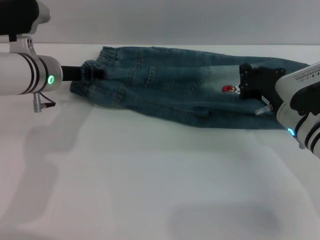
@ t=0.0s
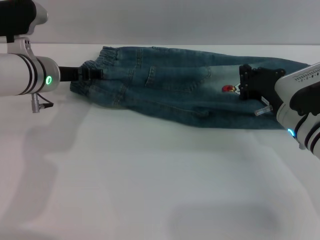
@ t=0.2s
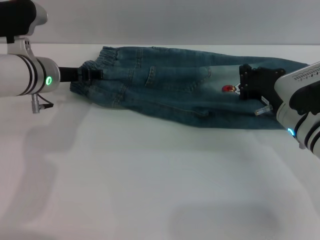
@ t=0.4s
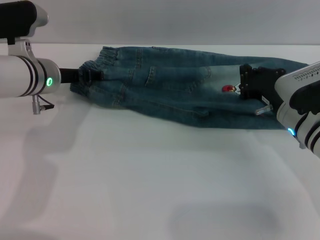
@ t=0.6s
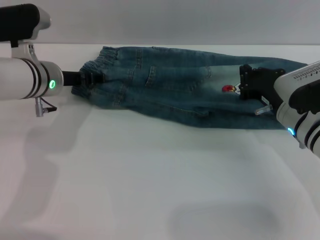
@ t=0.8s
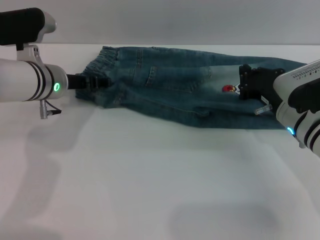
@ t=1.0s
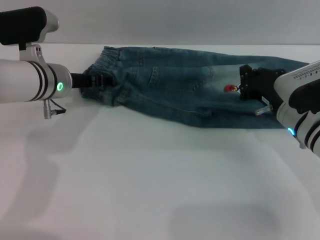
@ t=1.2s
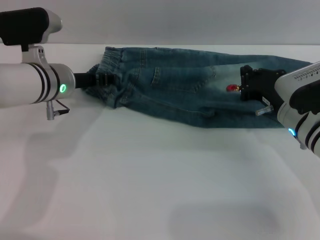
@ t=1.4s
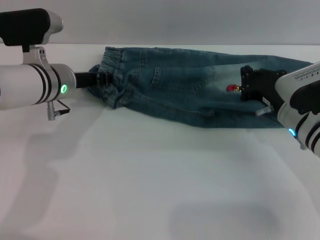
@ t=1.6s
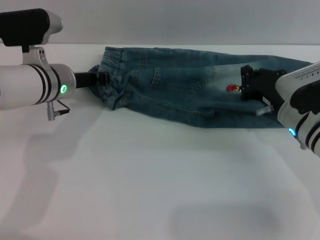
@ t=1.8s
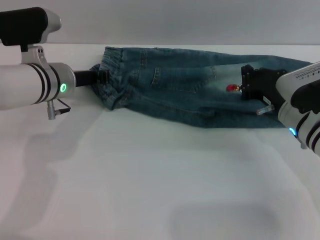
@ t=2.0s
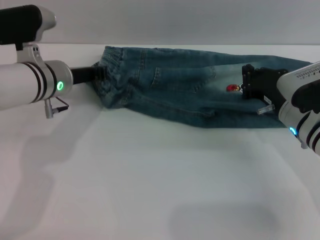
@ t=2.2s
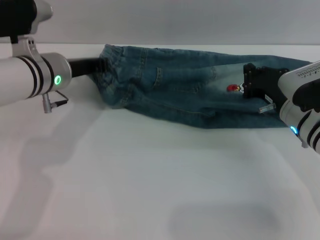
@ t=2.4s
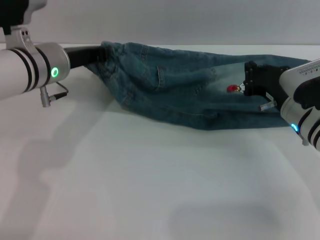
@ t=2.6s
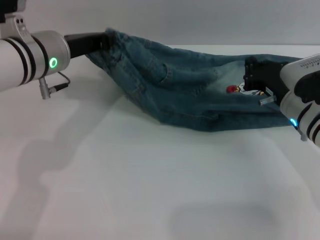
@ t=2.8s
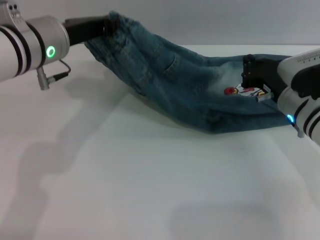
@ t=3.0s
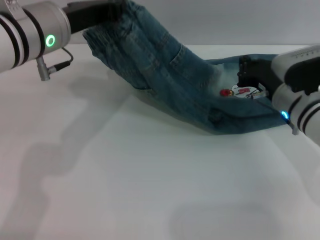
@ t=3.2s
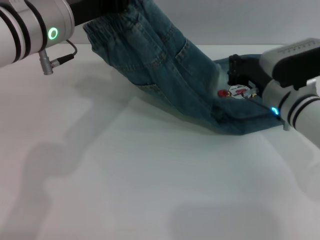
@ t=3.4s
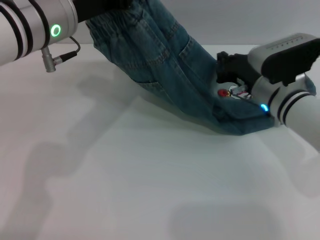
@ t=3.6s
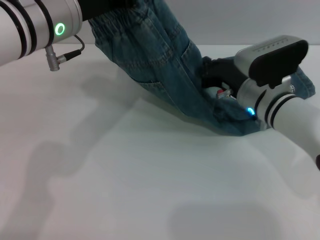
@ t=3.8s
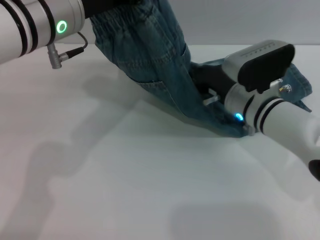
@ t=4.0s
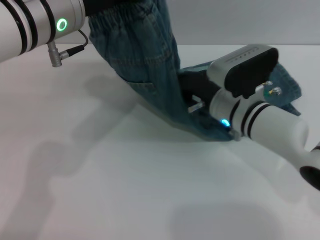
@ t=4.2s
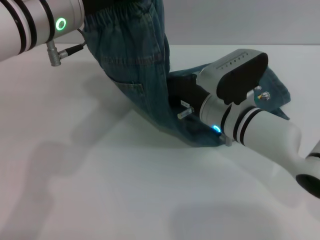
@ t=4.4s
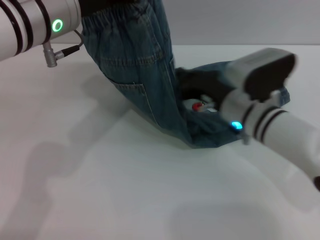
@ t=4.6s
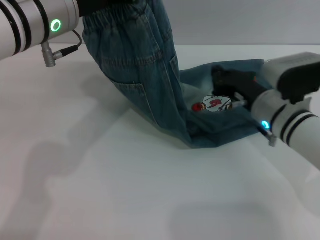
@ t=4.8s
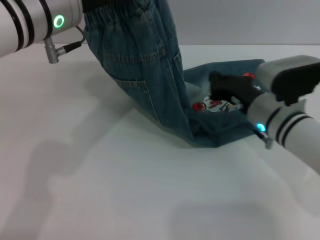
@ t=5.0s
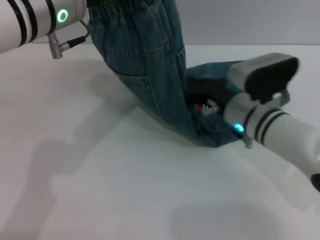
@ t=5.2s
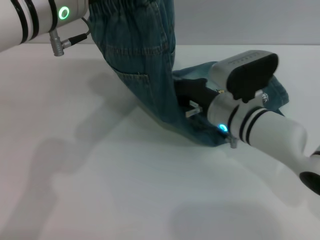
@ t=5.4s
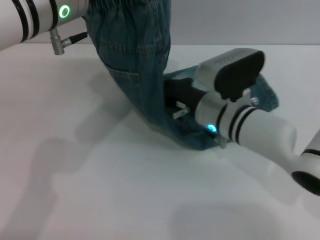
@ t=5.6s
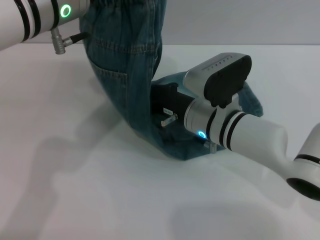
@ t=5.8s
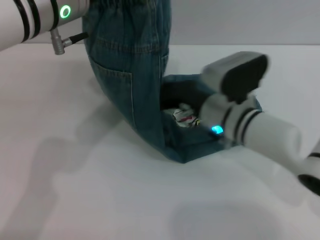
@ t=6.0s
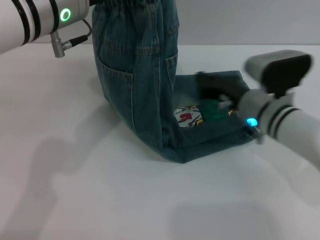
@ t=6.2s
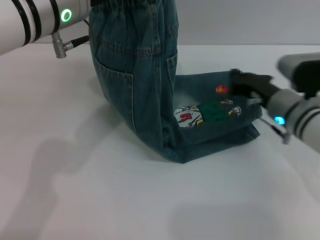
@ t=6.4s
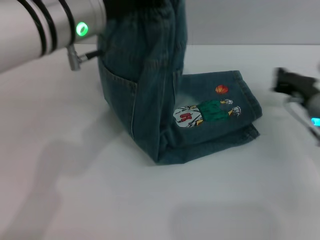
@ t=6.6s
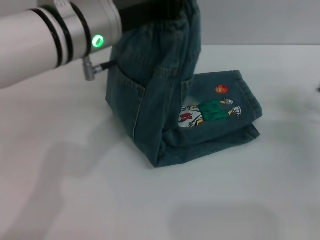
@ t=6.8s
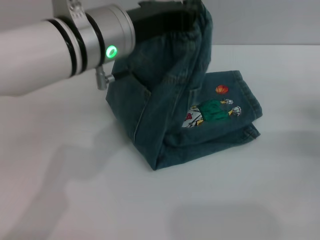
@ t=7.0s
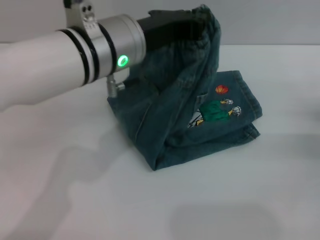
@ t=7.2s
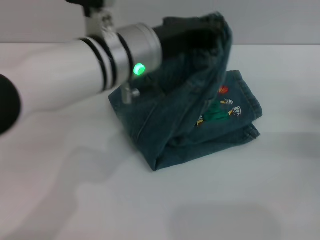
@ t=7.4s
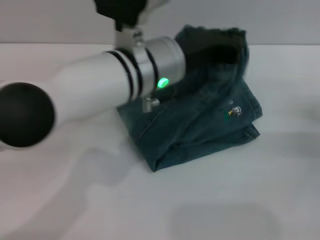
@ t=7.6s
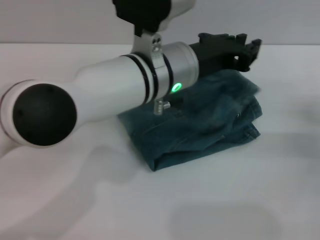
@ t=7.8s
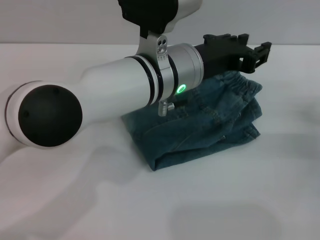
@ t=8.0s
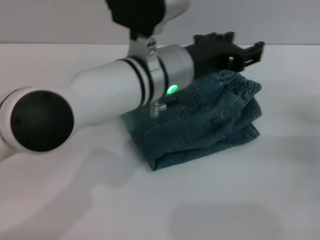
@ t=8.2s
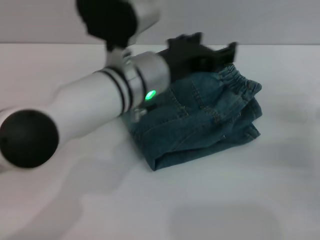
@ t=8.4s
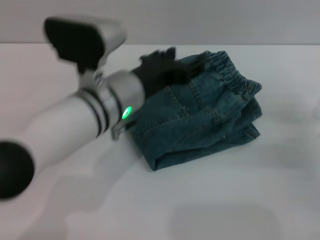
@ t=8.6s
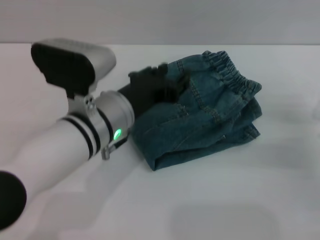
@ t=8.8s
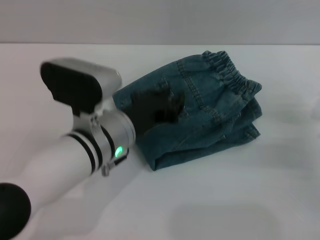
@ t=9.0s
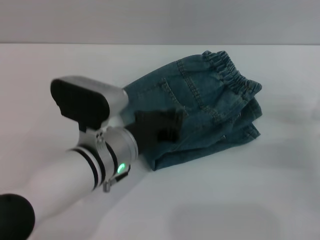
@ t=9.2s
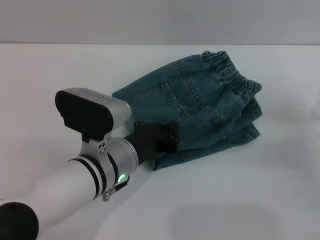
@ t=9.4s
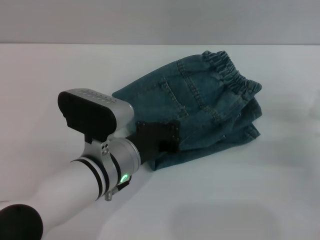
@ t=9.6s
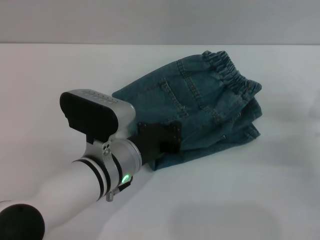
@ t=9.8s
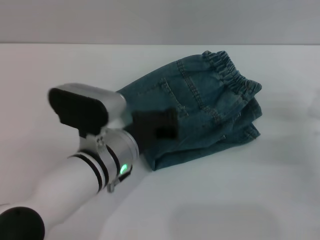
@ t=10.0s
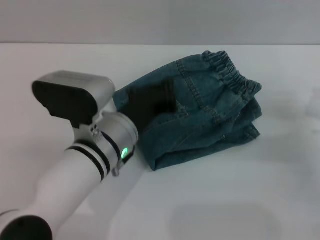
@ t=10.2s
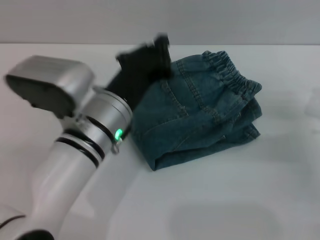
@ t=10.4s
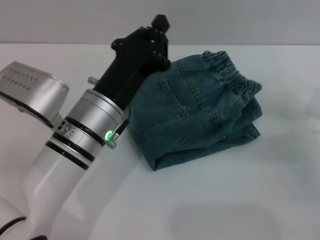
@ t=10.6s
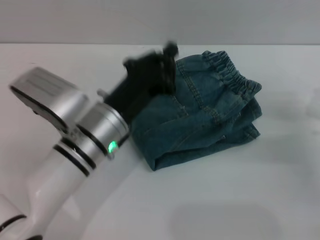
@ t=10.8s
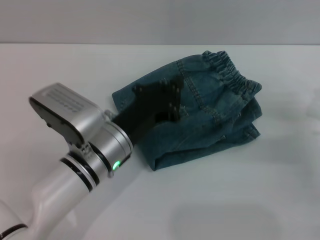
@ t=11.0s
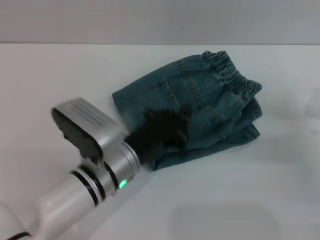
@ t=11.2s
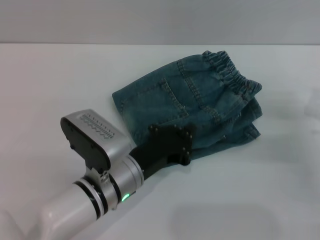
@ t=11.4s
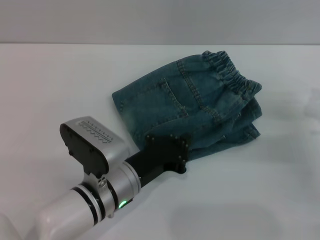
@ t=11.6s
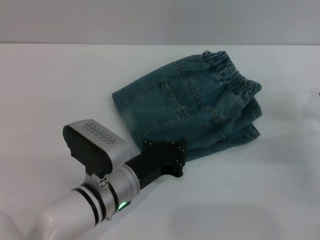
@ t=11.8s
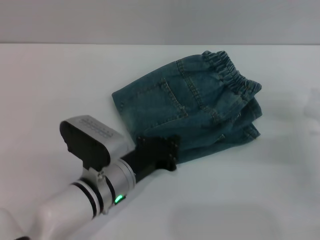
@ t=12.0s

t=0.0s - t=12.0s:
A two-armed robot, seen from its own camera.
Step, t=0.0s - t=8.0s: Fold the pants from left to right with the left gripper.
t=0.0s - t=1.6s: There are only small adjustments of the grippers.
t=1.6s - t=3.0s: The left gripper goes approximately 10 cm upward, and closes.
t=3.0s - t=4.4s: The left gripper changes place by roughly 5 cm, while the right gripper is displaced to the left by about 10 cm.
t=4.4s - t=6.0s: The right gripper reaches about 10 cm to the right, then returns.
t=6.0s - t=7.6s: The left gripper travels to the right and downward by about 10 cm. Meanwhile the right gripper heads to the right, covering some 25 cm.
t=7.6s - t=9.0s: The left gripper moves downward, some 10 cm, and opens its fingers.
t=9.0s - t=10.4s: The left gripper closes its fingers.
t=10.4s - t=12.0s: The left gripper is displaced downward by about 10 cm.

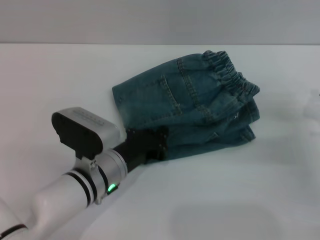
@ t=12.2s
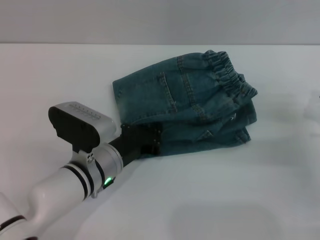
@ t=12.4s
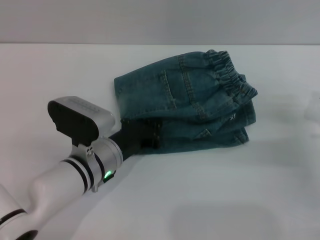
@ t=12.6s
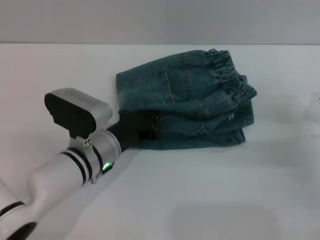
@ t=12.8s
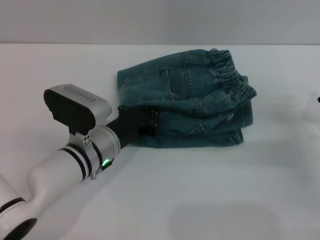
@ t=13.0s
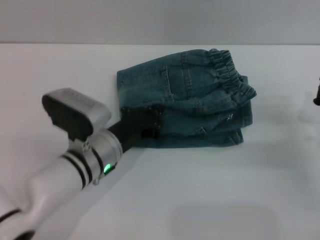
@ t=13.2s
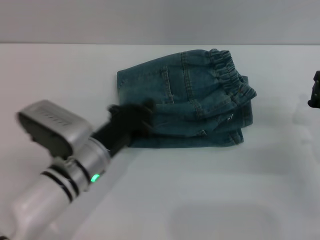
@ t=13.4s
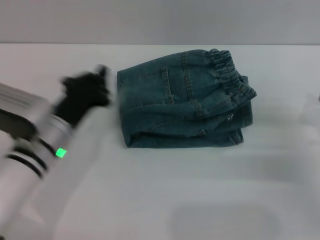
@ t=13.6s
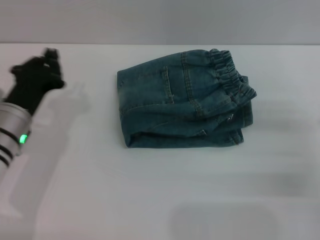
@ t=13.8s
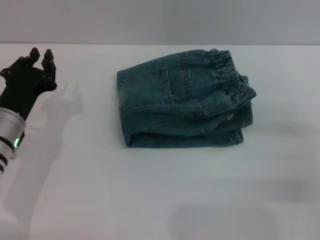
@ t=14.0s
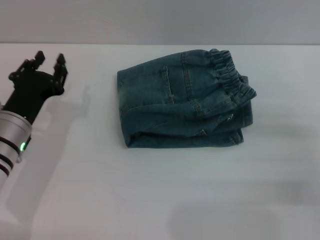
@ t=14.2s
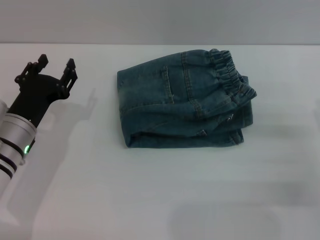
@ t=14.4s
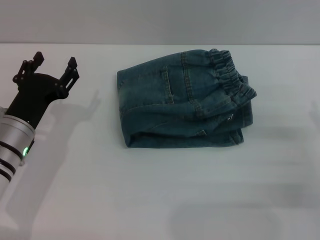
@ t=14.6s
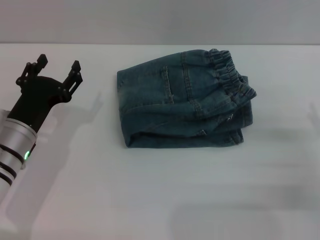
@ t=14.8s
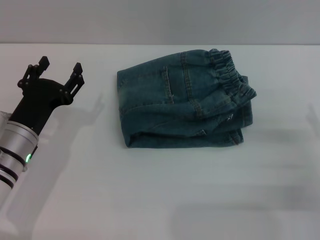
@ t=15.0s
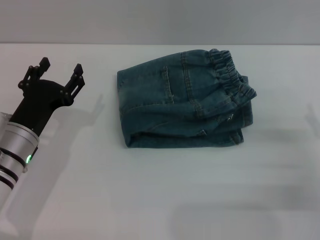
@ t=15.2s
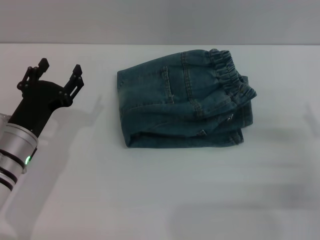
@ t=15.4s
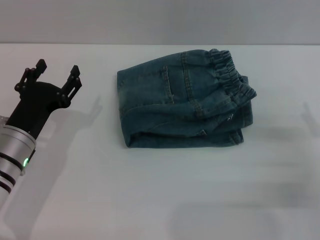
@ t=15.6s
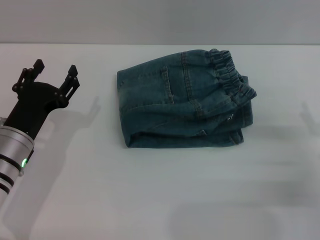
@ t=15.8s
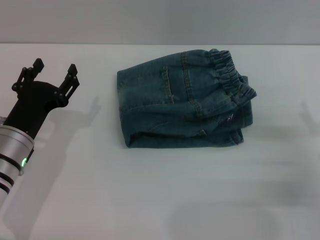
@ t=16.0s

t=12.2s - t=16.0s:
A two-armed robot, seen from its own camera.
t=12.2s - t=13.4s: The grippers move only a little.
t=13.4s - t=14.8s: The right gripper travels backward by roughly 5 cm, and opens its fingers, while the left gripper is displaced to the left by about 10 cm, and opens up.
t=14.8s - t=16.0s: Neither gripper changes place.

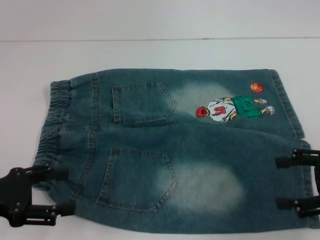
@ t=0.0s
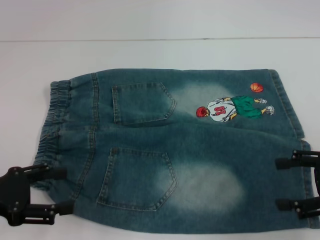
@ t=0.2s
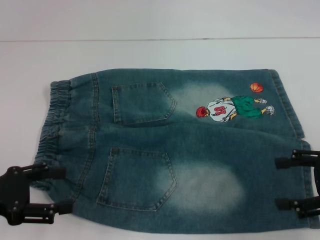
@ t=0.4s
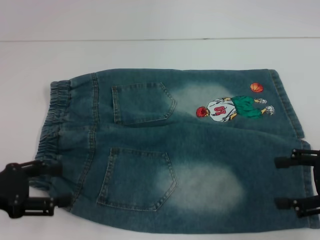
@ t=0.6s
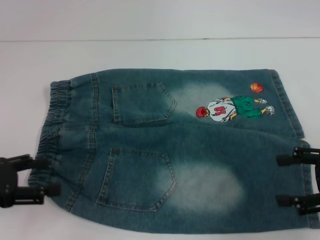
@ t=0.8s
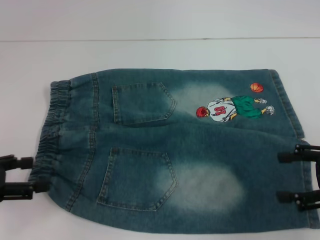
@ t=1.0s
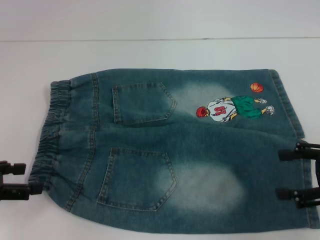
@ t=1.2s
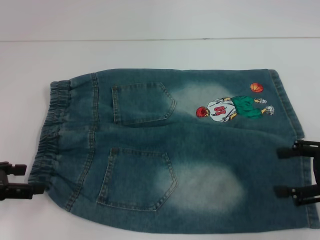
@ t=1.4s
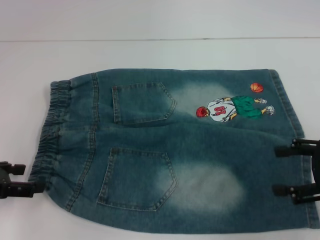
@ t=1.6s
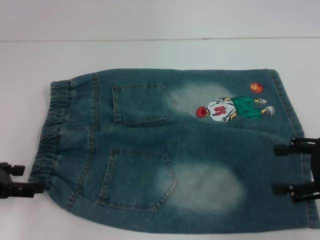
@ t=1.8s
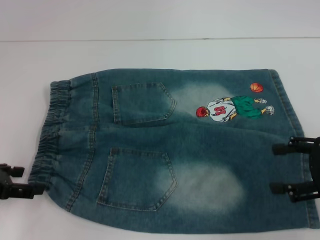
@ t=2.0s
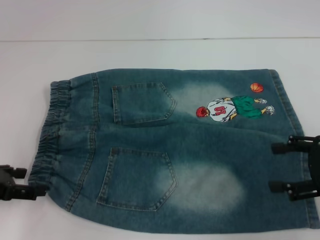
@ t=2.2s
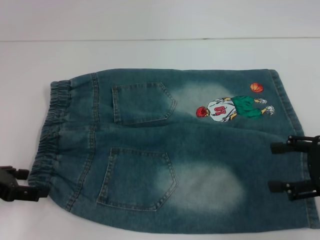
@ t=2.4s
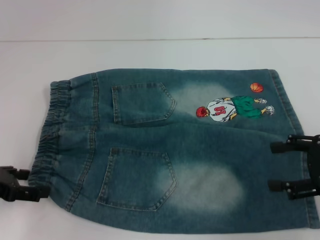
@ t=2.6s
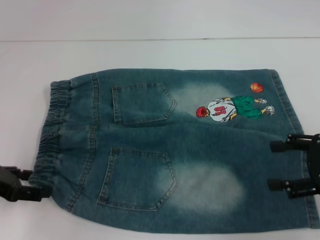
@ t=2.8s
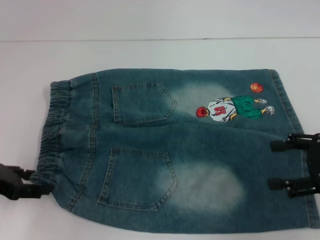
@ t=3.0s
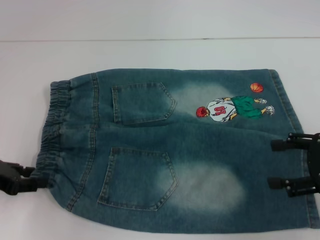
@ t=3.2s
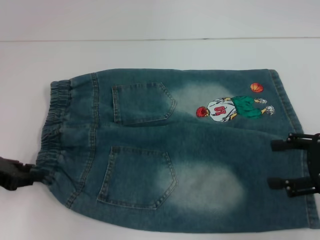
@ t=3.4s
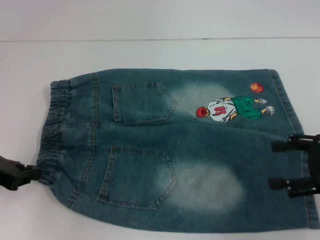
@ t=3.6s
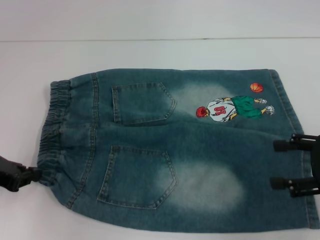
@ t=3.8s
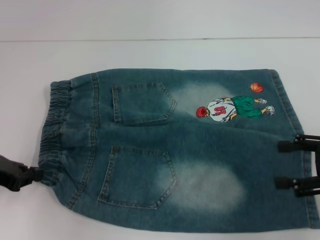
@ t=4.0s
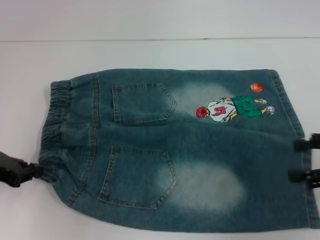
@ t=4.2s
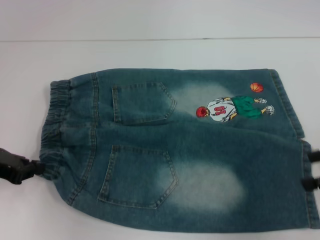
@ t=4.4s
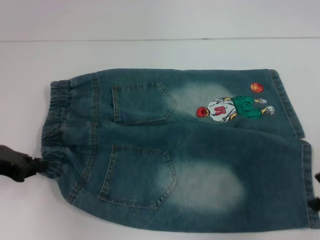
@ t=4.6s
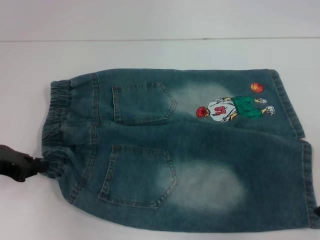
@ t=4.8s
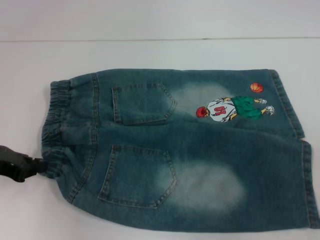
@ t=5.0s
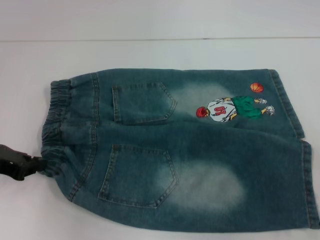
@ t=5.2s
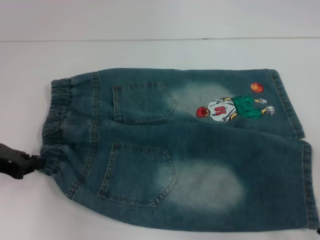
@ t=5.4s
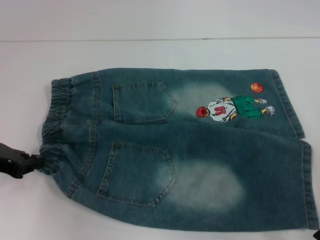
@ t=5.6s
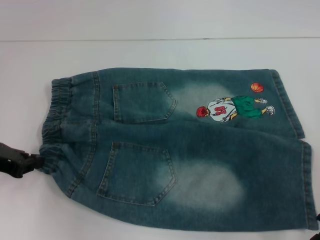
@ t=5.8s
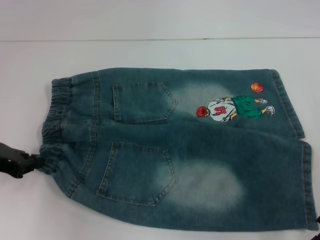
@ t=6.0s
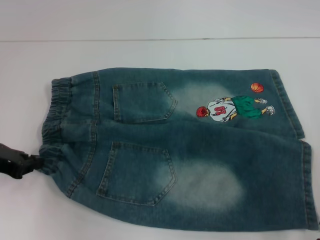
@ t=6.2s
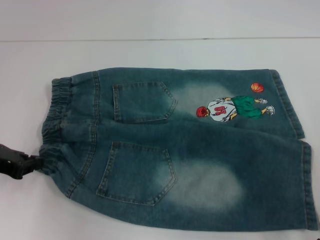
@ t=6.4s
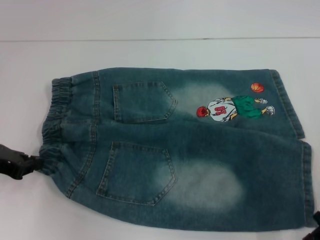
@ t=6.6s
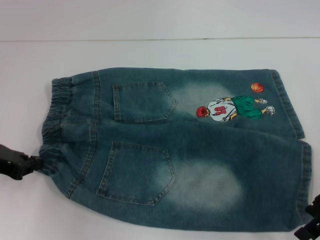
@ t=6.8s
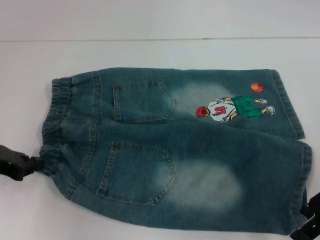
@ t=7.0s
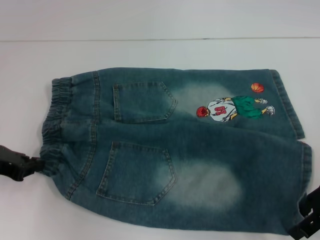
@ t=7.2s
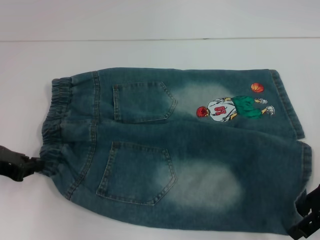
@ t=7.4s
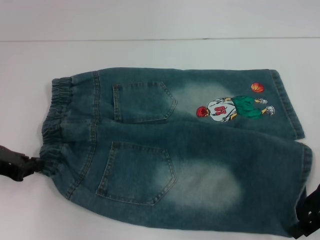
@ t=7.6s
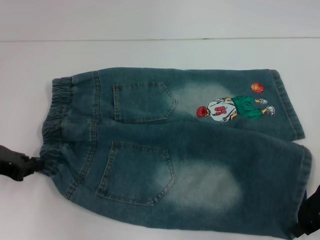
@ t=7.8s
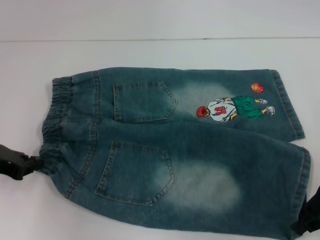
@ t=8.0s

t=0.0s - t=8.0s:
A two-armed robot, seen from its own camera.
Step, t=0.0s - t=3.0s: Hold the lower left waistband with your left hand.
Step, t=3.2s - t=7.6s: Grab the lower right pant leg with your right hand.
t=1.6s - t=3.2s: The grippers make only small movements.
t=3.2s - t=4.8s: The left gripper closes up.
t=4.8s - t=8.0s: The grippers stay close to where they were, moving slightly.